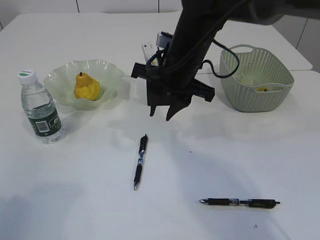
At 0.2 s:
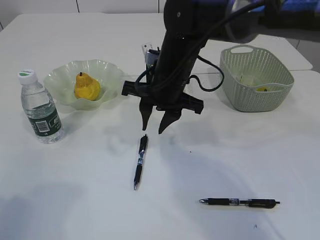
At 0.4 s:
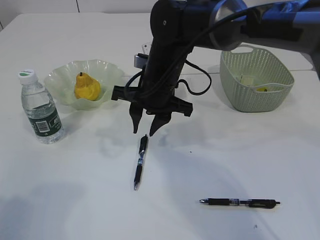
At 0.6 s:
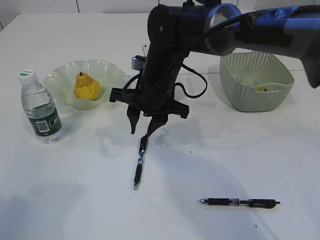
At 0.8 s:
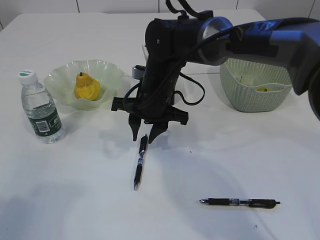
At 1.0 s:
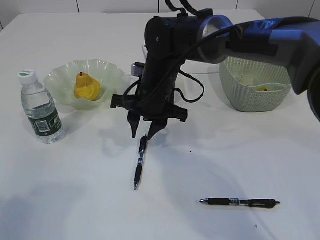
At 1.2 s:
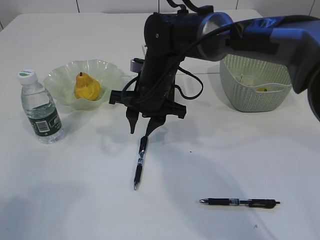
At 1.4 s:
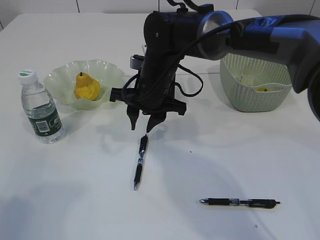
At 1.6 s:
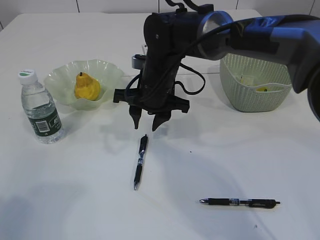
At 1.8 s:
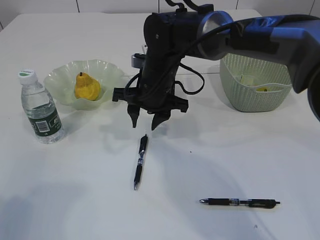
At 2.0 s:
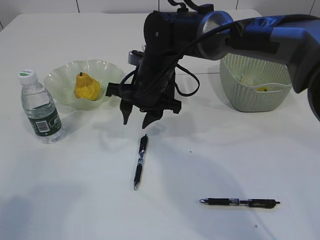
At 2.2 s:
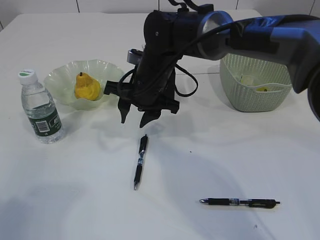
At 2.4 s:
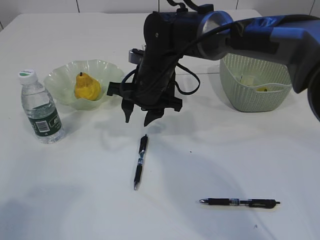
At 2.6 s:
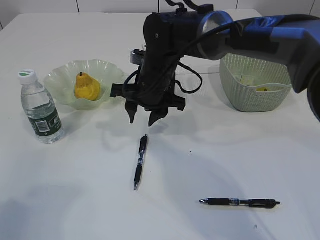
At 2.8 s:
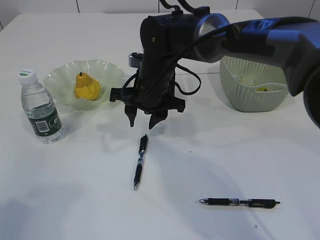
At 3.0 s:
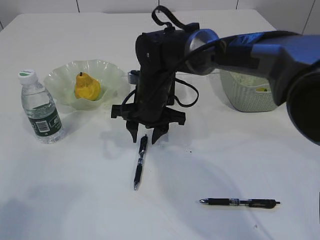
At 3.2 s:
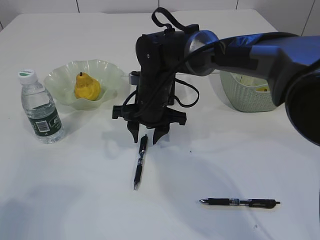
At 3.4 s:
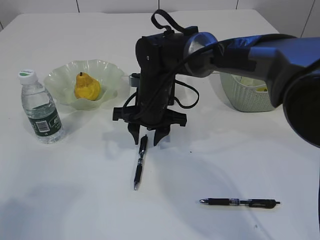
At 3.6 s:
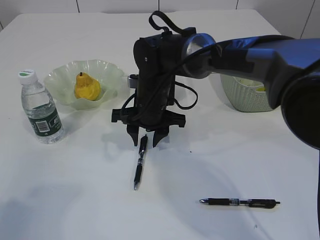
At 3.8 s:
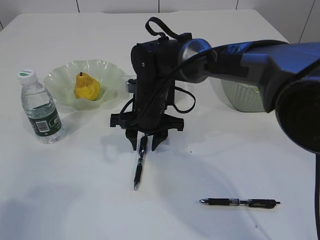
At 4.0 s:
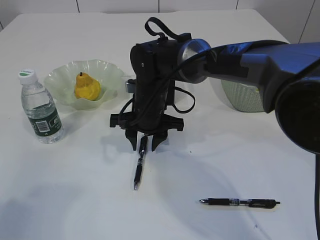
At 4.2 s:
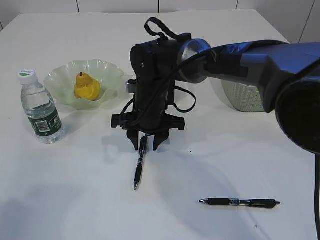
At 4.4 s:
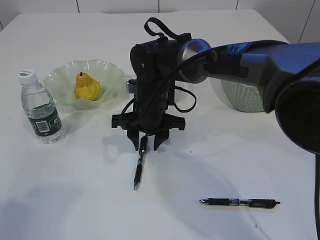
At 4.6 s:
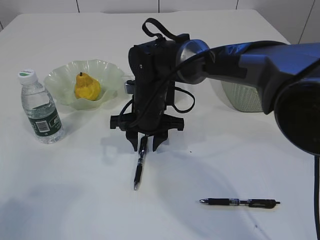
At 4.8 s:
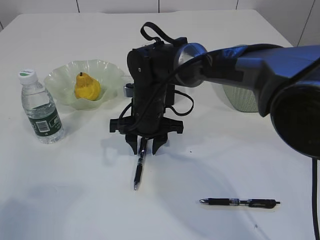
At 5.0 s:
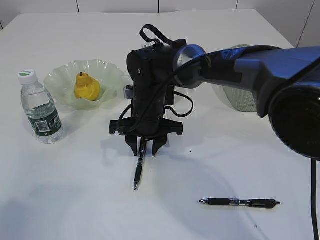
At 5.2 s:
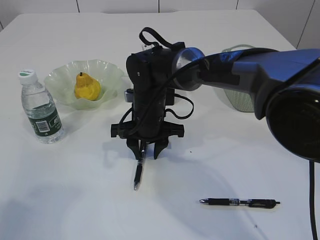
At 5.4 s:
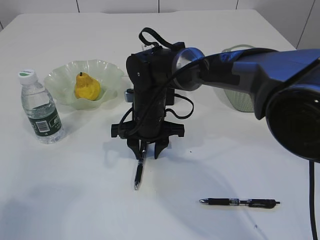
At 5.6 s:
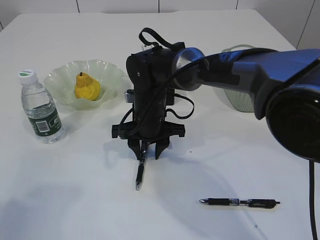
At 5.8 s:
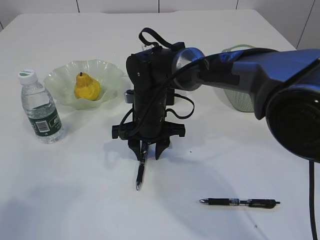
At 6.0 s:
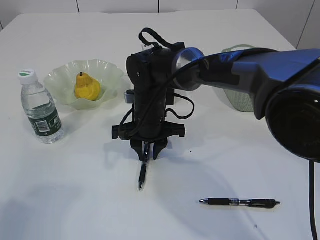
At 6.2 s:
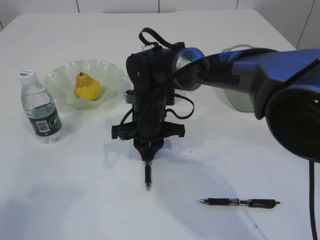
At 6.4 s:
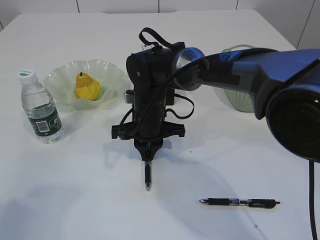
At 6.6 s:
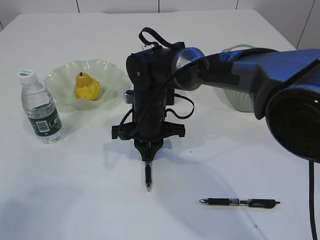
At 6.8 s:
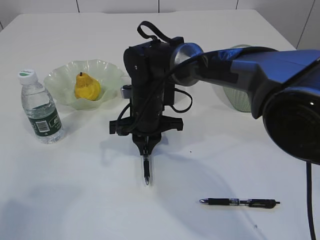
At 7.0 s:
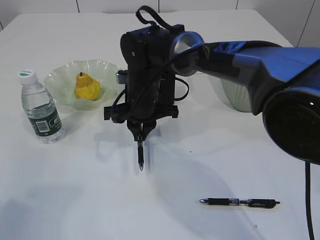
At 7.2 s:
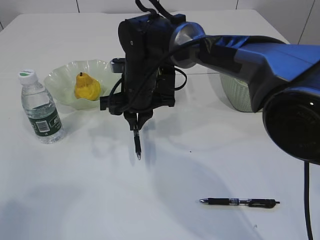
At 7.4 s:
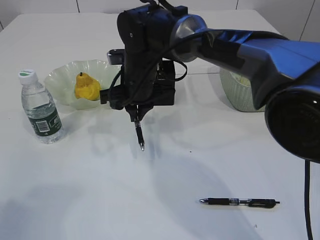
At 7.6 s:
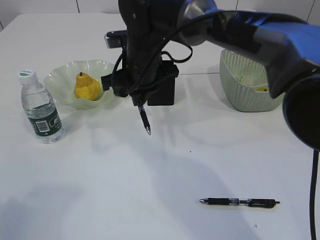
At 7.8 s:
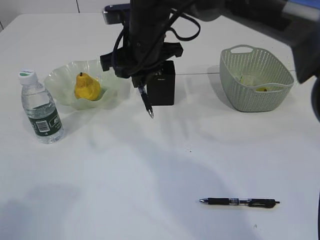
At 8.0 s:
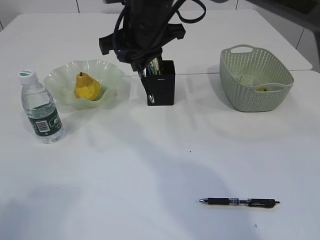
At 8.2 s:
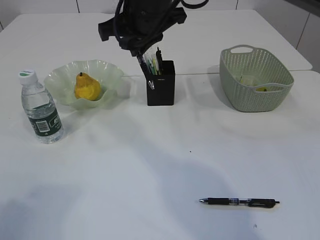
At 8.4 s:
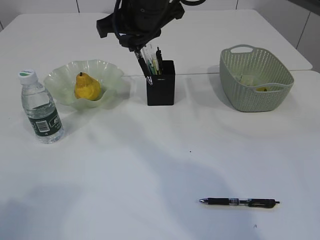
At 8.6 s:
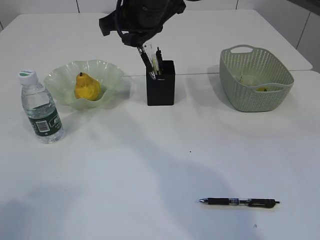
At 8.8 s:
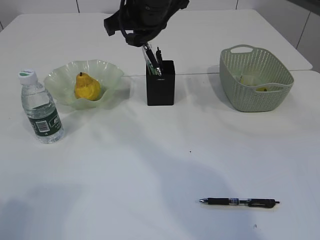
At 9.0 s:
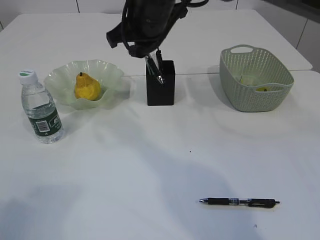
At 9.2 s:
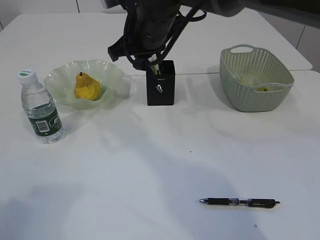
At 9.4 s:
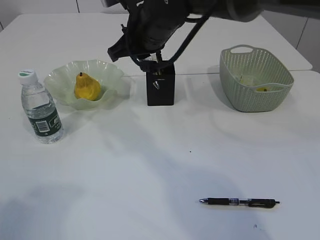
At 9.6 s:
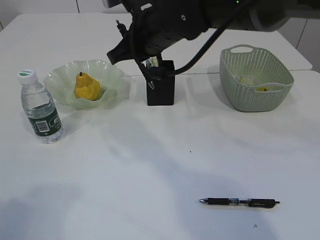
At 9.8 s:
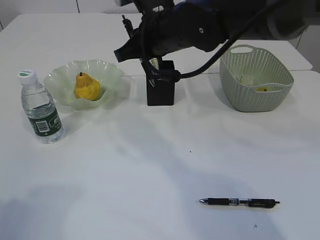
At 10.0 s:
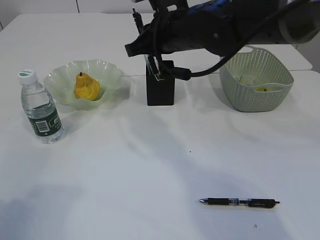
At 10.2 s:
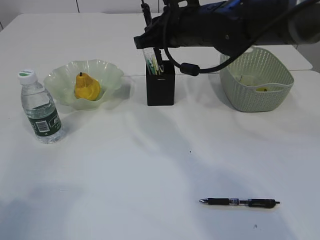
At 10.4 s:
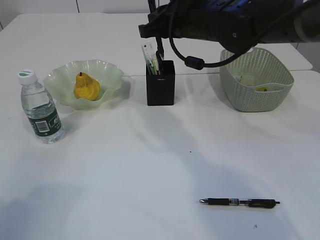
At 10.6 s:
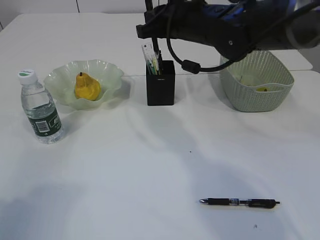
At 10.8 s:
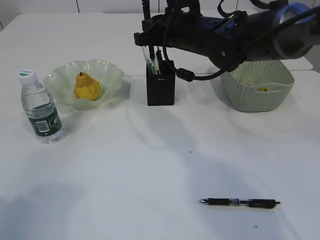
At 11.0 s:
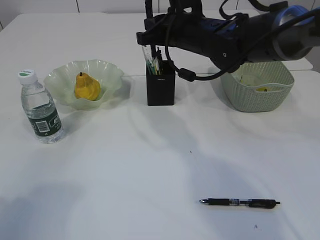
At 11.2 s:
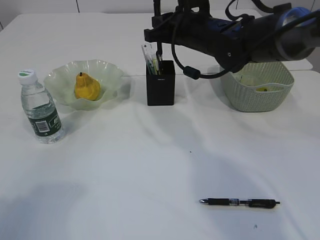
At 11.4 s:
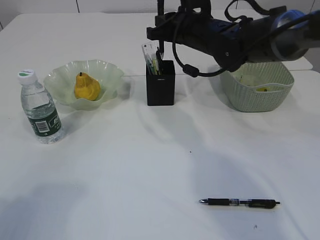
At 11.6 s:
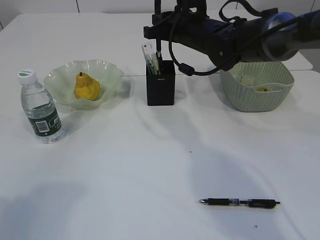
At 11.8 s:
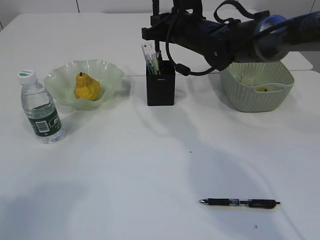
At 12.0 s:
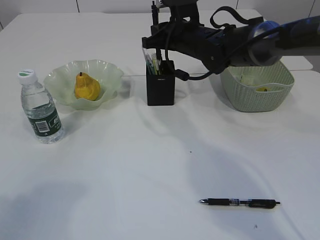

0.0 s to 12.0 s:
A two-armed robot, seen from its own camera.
Step, 0.0 to 6.8 s: Pick up the pen with right arm.
0.0 to 1.6 s: The right gripper goes roughly 5 cm downward.
1.6 to 4.4 s: The grippers make only small movements.
4.4 to 6.0 s: The grippers make only small movements.
6.0 to 7.6 s: The right gripper heads upward, covering about 10 cm, and closes its fingers.
7.6 to 9.0 s: The right gripper shifts about 10 cm upward.
9.0 to 10.4 s: The right gripper moves to the right, roughly 5 cm.
10.4 to 12.0 s: The right gripper goes roughly 10 cm forward and downward.

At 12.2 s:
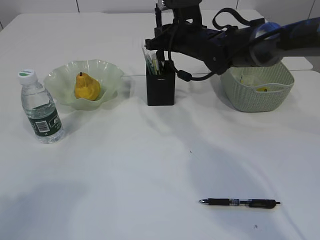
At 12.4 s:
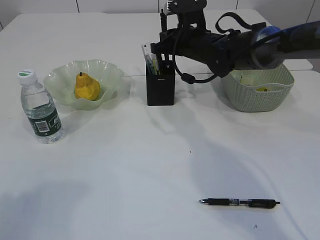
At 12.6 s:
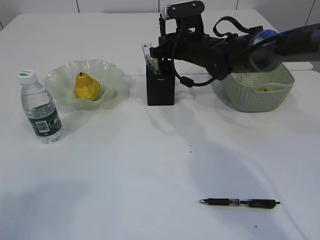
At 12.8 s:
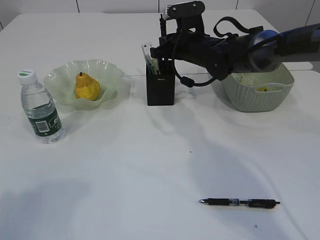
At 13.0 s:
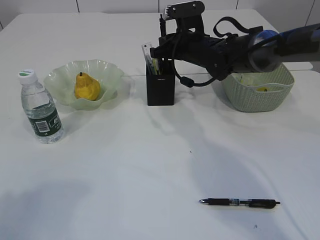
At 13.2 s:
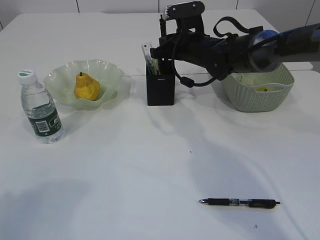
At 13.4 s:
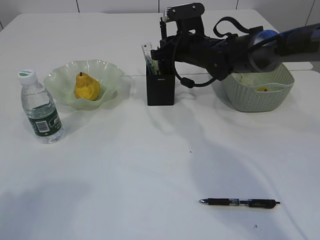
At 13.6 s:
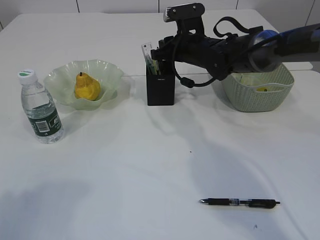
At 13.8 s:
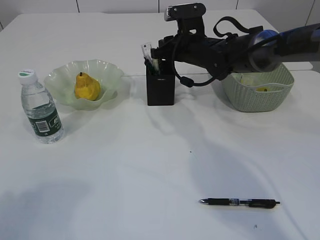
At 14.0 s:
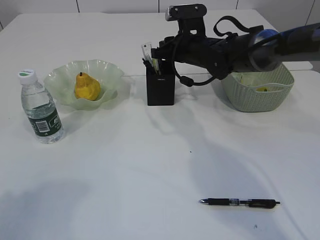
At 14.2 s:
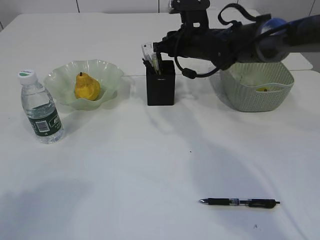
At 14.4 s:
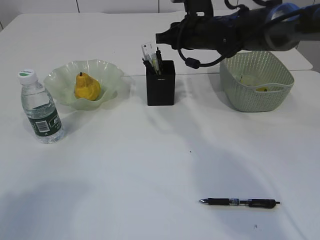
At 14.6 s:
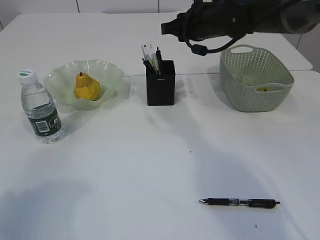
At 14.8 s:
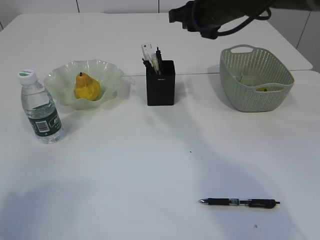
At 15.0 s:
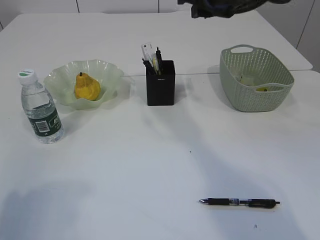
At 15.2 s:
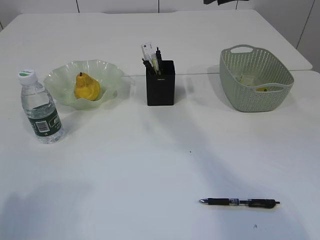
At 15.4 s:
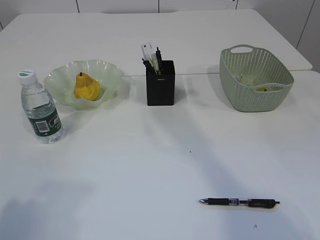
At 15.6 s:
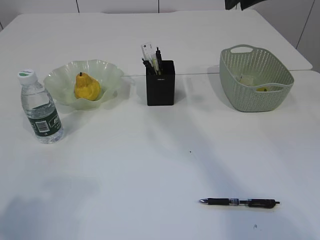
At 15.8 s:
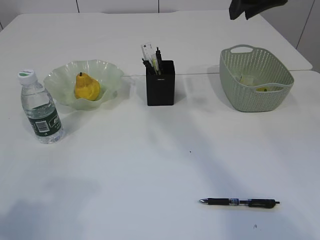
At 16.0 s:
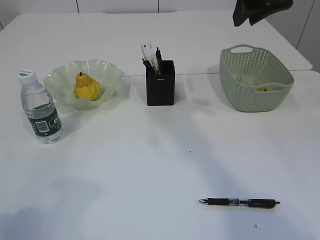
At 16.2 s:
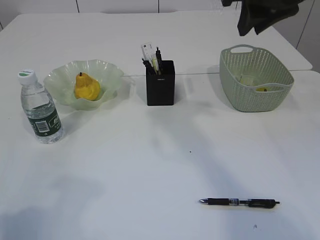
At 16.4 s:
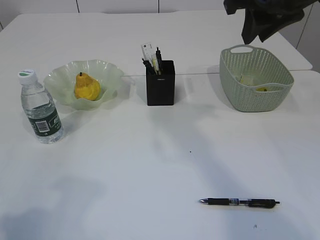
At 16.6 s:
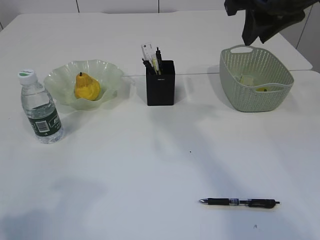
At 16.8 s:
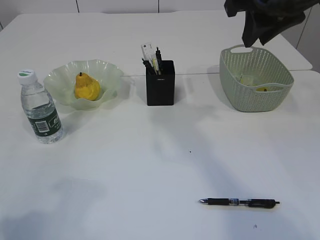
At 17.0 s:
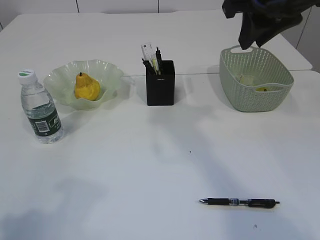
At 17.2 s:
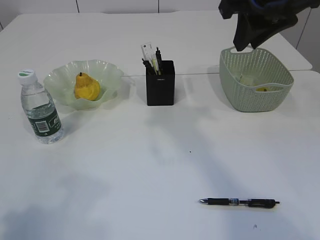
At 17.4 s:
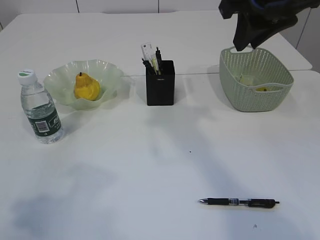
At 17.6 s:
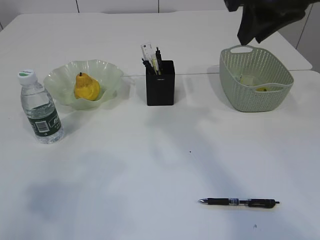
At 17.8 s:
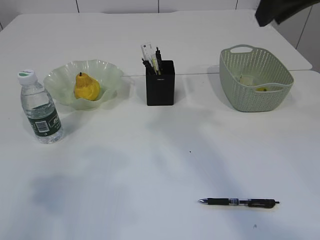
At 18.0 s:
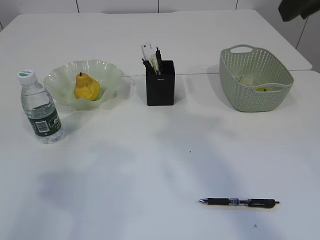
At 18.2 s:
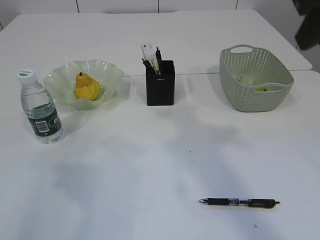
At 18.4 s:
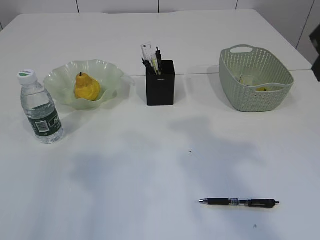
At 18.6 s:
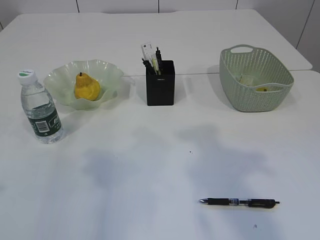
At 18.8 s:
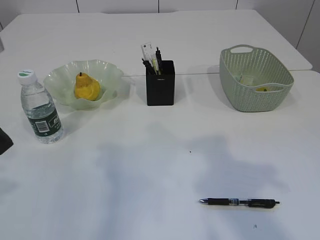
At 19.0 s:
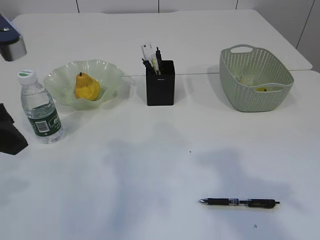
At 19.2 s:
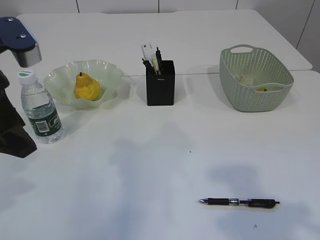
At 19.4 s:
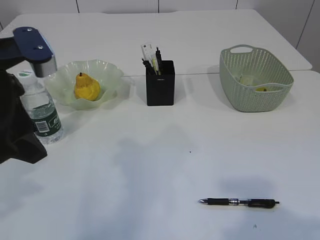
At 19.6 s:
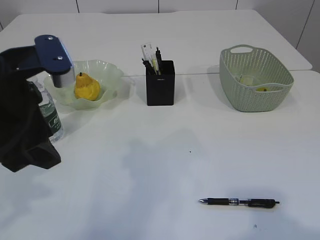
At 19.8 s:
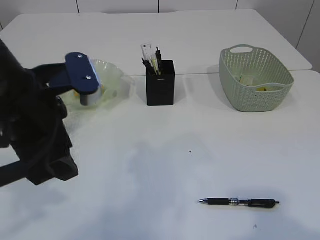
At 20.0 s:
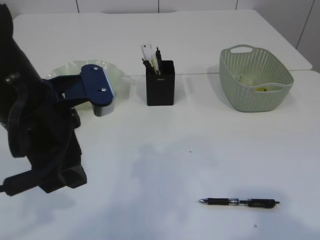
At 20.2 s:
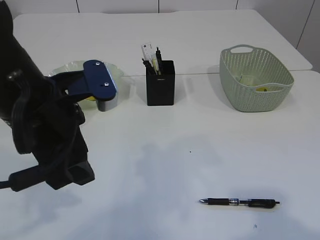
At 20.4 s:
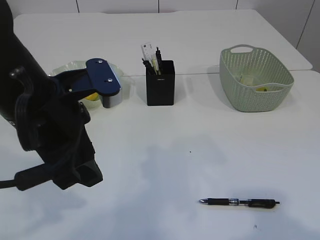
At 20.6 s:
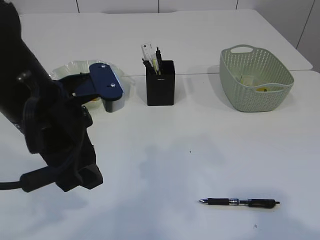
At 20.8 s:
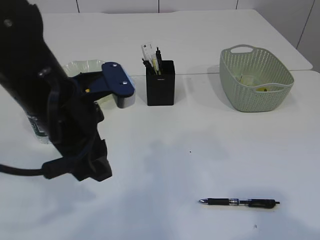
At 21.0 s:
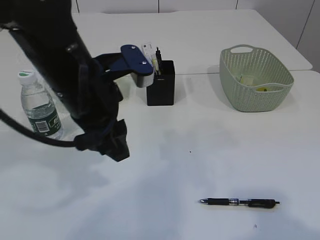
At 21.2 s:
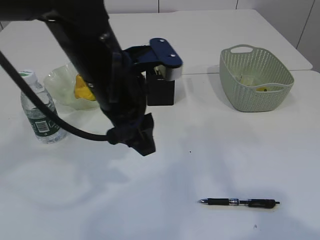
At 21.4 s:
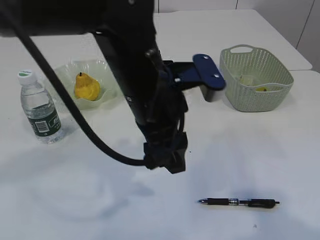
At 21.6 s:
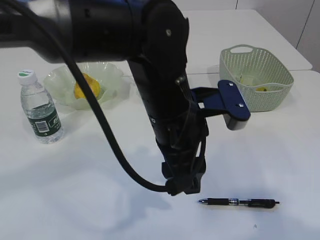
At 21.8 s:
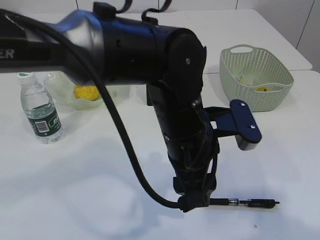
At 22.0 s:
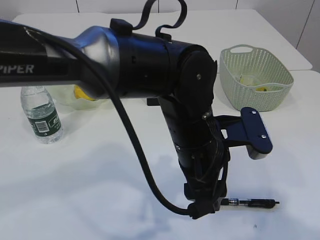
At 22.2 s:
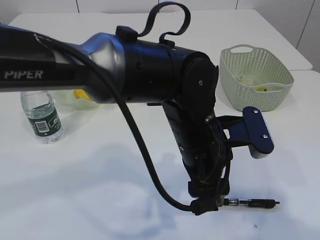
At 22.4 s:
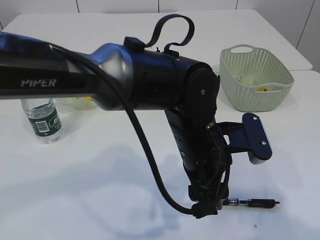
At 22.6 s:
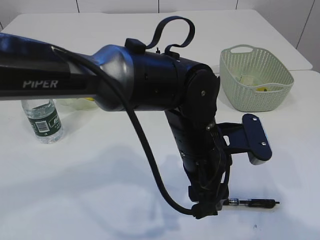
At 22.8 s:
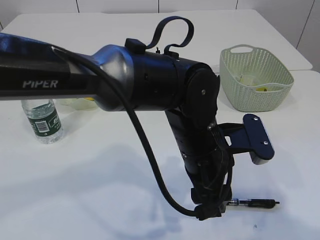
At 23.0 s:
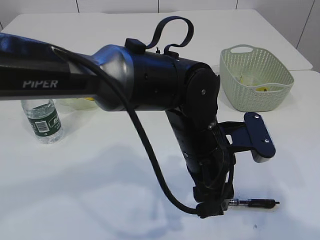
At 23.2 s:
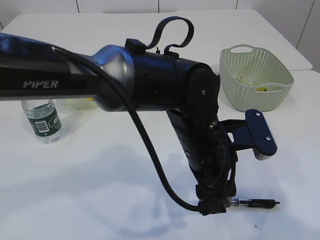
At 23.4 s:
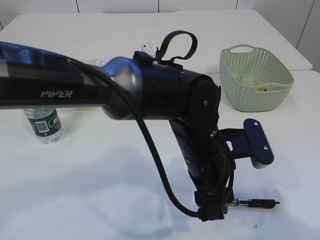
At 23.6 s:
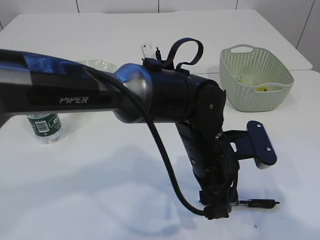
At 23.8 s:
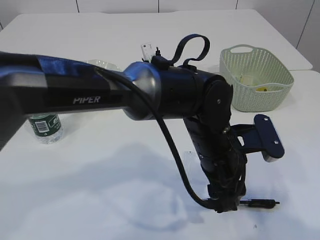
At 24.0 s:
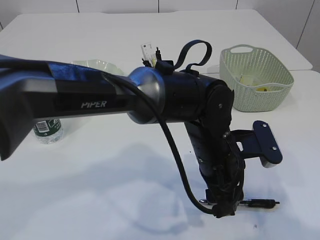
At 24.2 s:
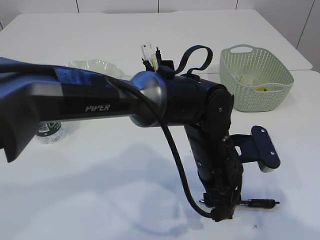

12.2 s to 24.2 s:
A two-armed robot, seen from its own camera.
12.2 to 13.8 s: The grippers stay close to where they were, moving slightly.
13.8 to 15.2 s: The right gripper goes some 20 cm upward and backward.
15.2 to 16.6 s: The right gripper is displaced backward by about 5 cm.
16.6 to 18.2 s: The left gripper travels forward by roughly 5 cm, while the right gripper travels backward by roughly 10 cm.
18.2 to 19.8 s: The right gripper moves backward and downward, about 20 cm, while the left gripper shifts about 15 cm to the right and forward.
19.8 to 21.2 s: The left gripper travels to the right and forward by roughly 10 cm.
21.2 to 22.6 s: The left gripper is displaced to the right and downward by some 15 cm.
